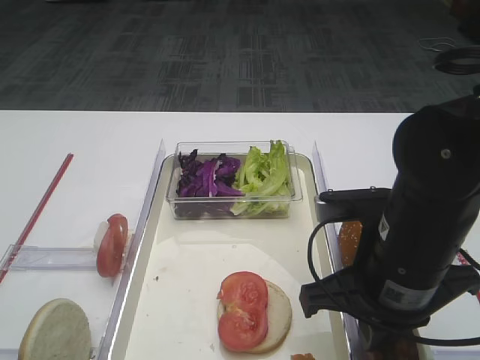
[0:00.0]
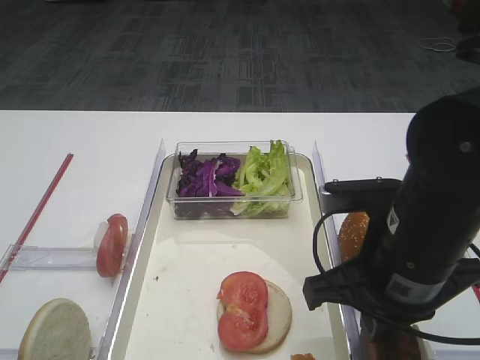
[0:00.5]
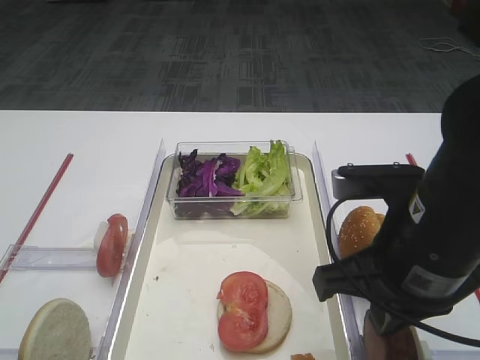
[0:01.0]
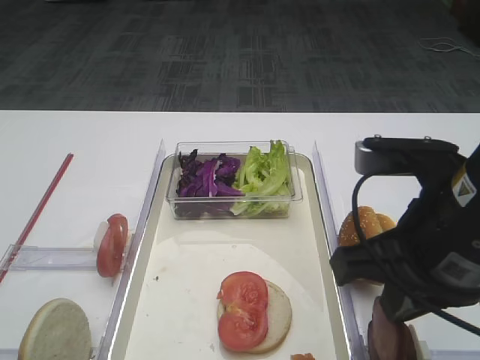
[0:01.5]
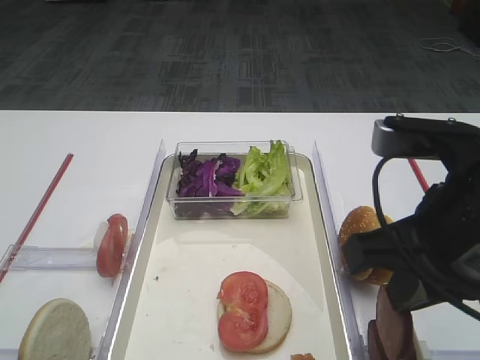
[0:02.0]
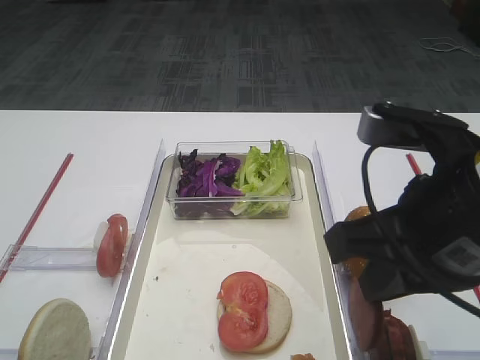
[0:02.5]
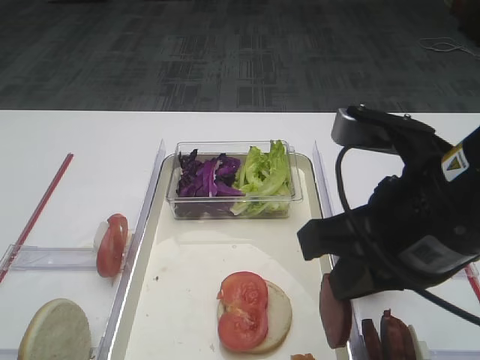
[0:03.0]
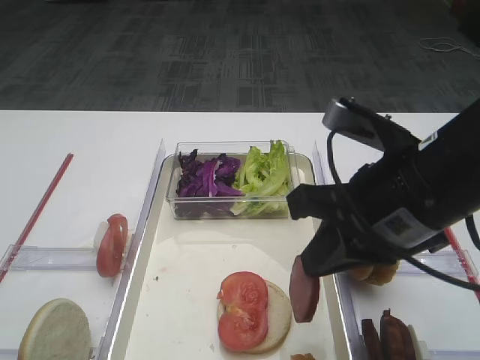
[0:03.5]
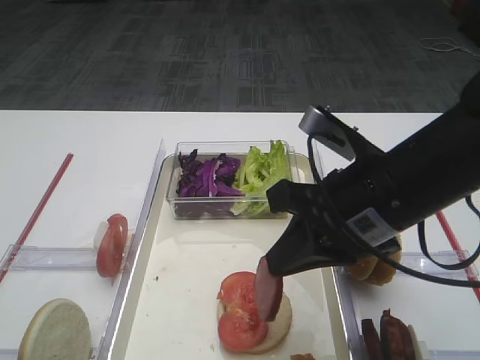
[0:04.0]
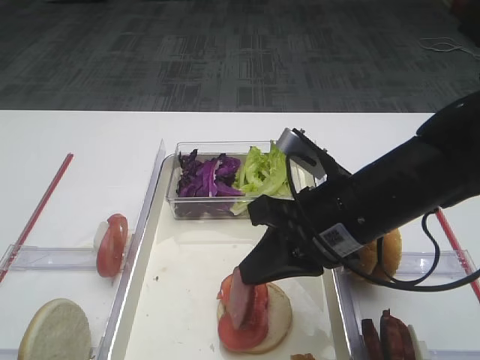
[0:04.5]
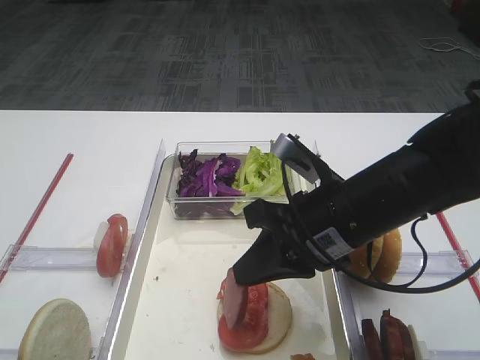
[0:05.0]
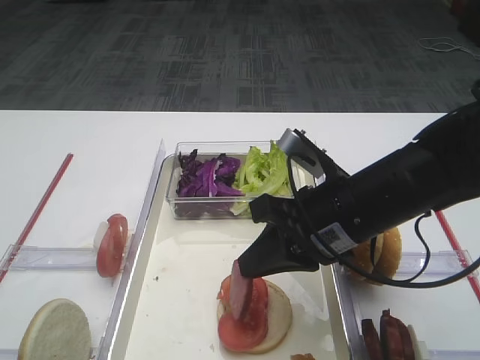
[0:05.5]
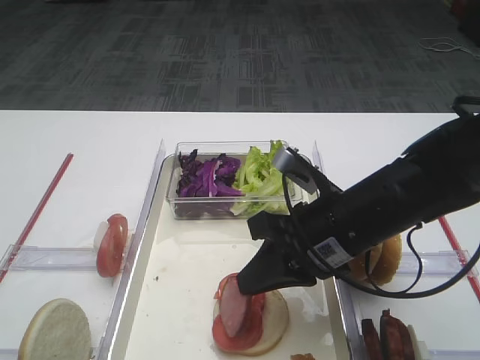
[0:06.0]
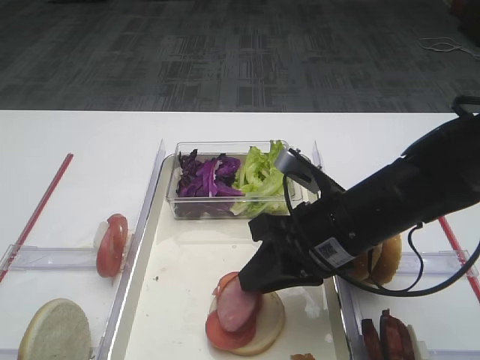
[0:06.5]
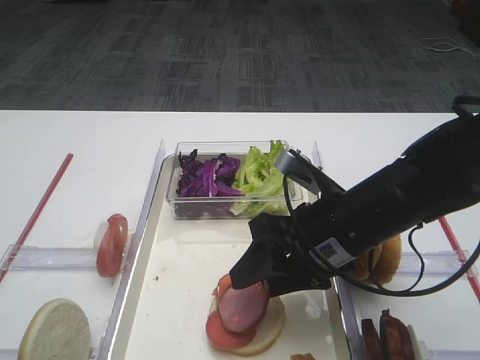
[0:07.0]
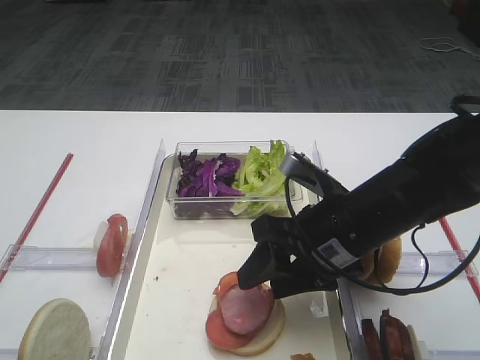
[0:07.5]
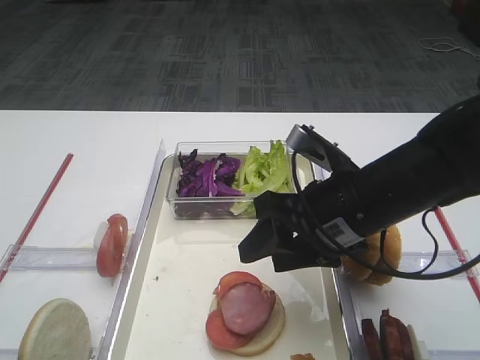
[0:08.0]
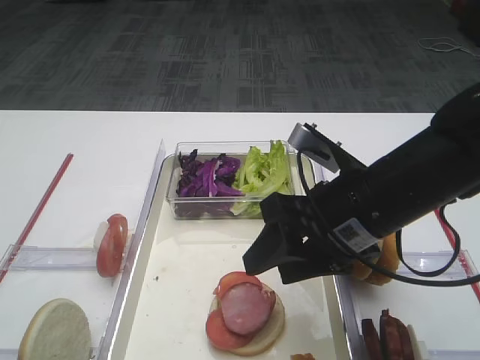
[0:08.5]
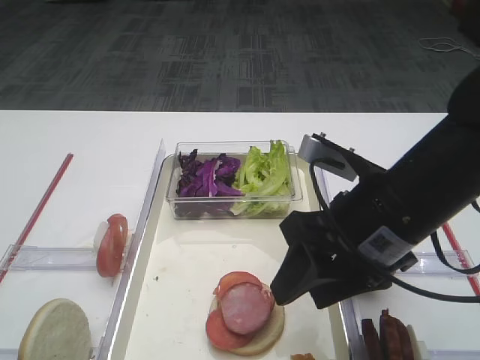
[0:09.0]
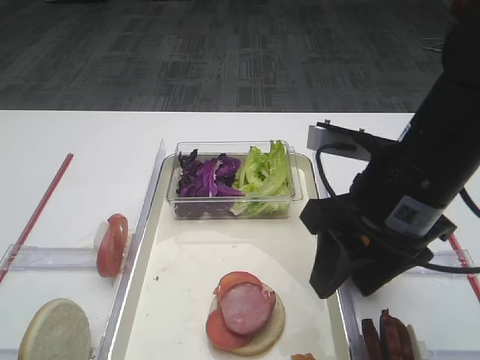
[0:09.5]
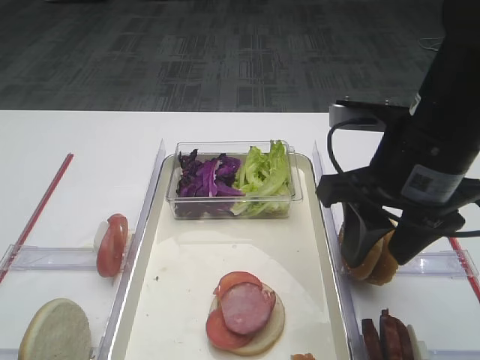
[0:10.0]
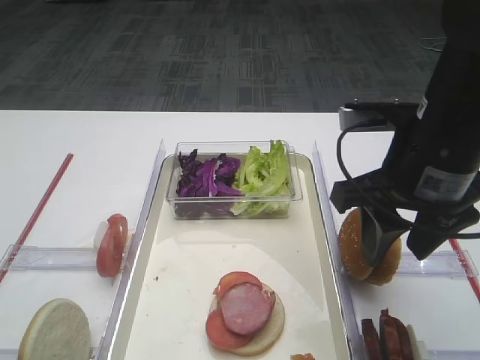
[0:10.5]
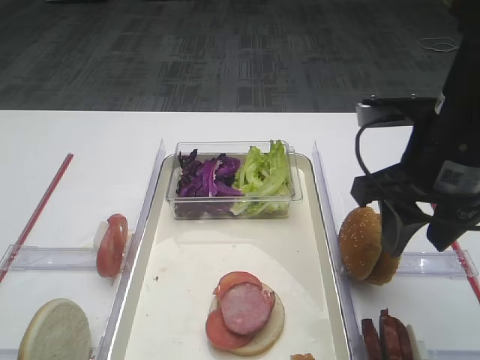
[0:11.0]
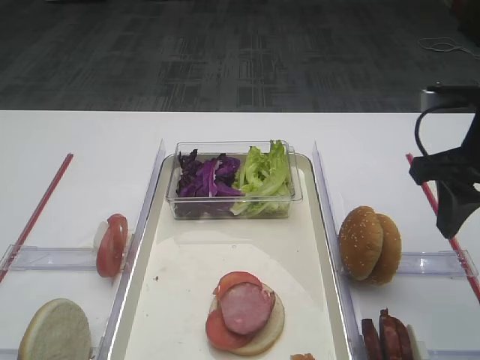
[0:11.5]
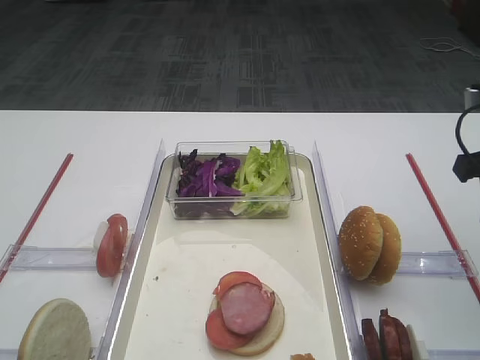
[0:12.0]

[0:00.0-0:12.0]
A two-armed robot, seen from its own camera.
Step, 0:00.0 to 0:09.0: Place the cutlet on the tomato slice with the right gripper.
0:00.0 to 0:02.0: The right gripper is displaced upward by some 10 cm.
0:02.0 to 0:04.0: The right gripper heads forward, covering some 5 cm.
0:04.0 to 0:06.0: The right gripper goes approximately 5 cm downward.
0:06.0 to 0:08.0: The right gripper opens.
0:08.0 to 0:10.0: The right gripper travels upward by some 10 cm.
0:10.0 to 0:12.0: The right gripper moves to the right, about 15 cm.

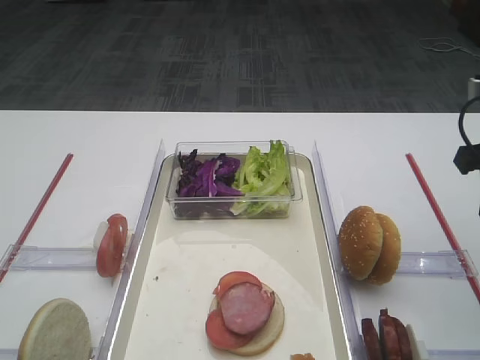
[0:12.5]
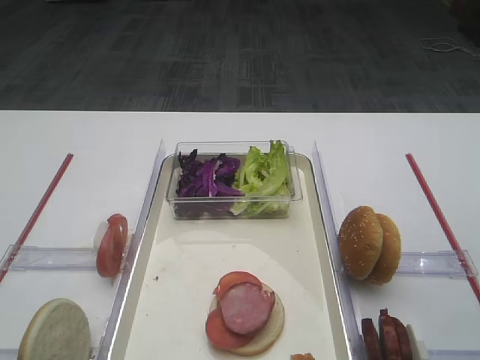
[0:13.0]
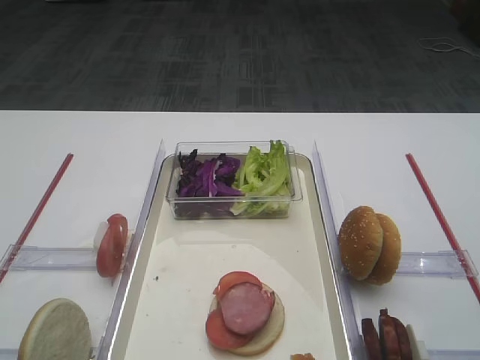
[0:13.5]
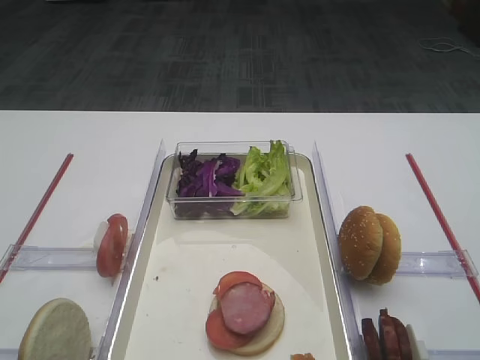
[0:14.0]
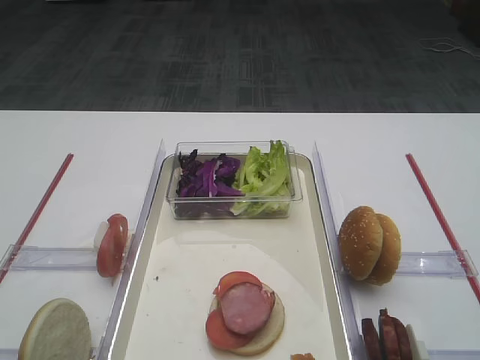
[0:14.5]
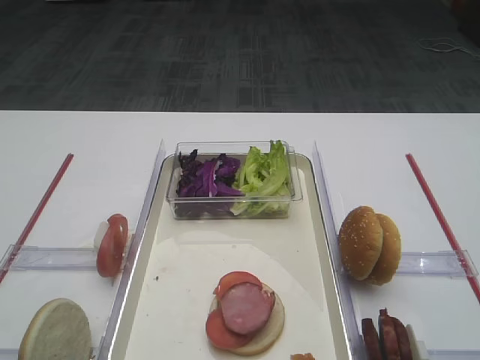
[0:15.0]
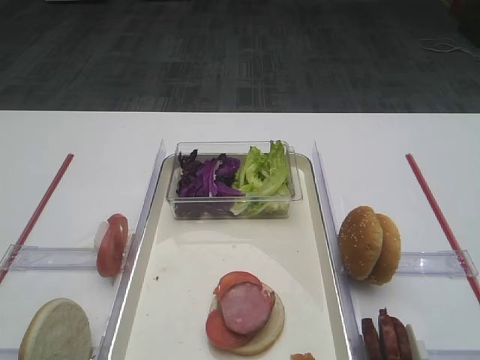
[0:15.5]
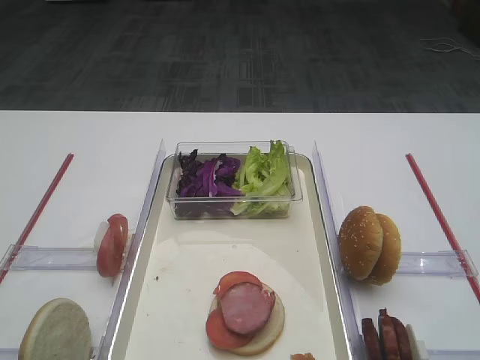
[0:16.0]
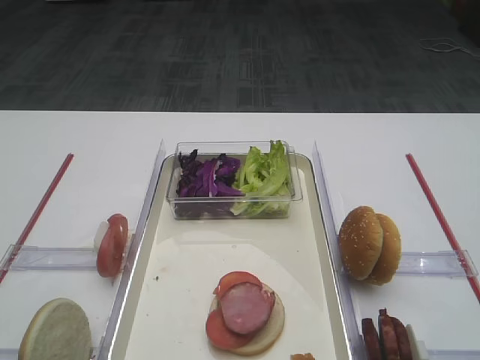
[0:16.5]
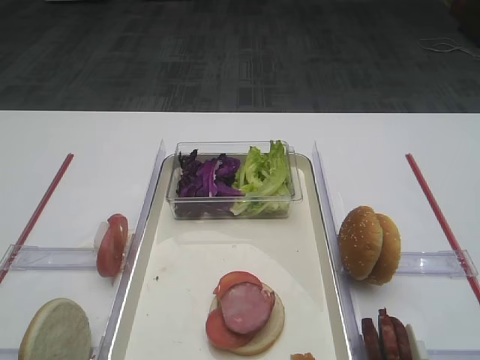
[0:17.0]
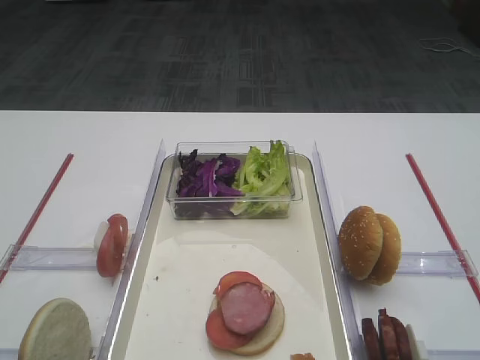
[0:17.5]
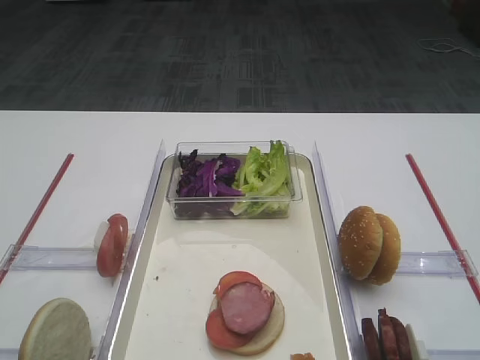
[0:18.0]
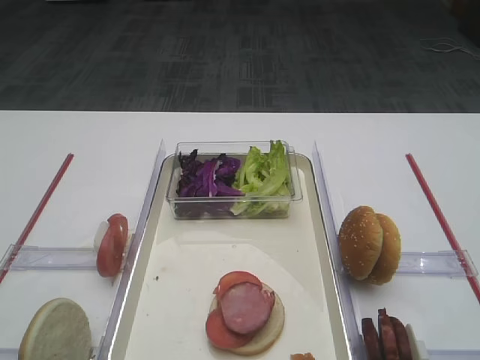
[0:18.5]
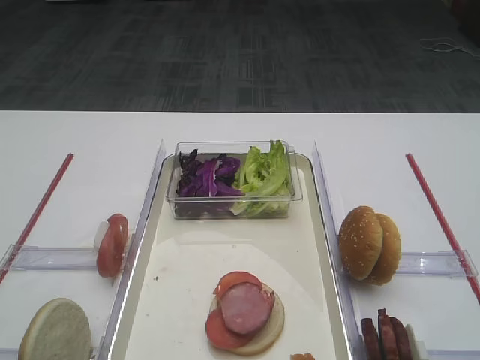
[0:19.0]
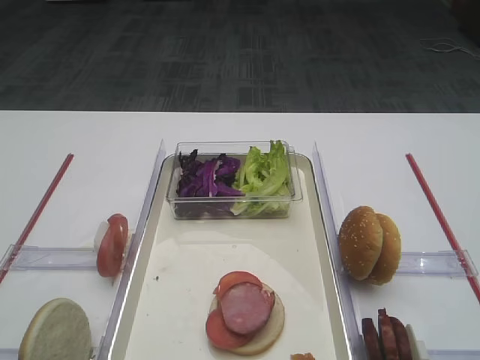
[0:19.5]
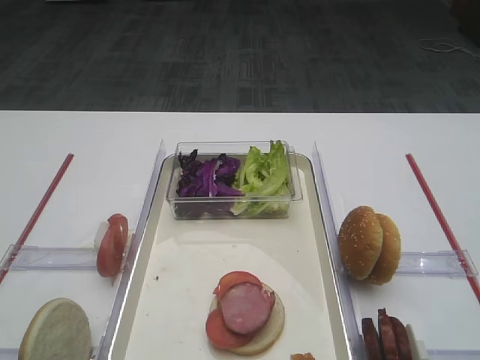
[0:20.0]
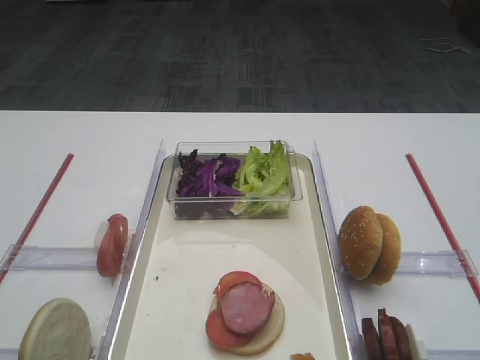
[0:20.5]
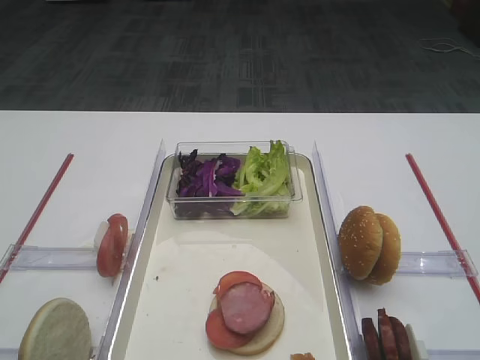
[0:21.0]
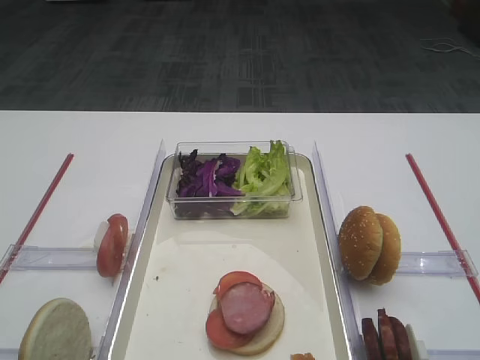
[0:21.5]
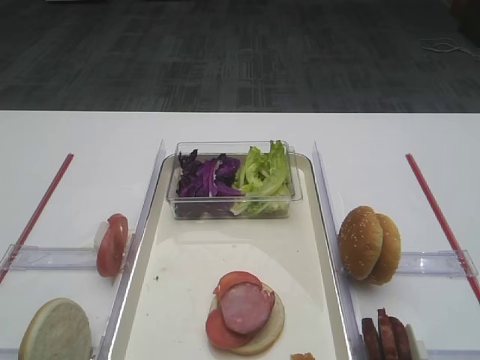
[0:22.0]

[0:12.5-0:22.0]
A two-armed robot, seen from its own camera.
0:18.0 to 0:22.0: The two grippers keep their place.
